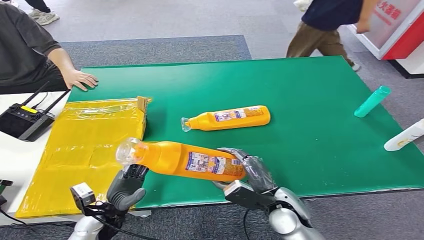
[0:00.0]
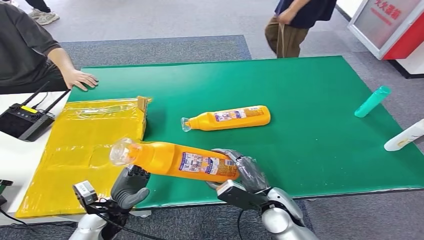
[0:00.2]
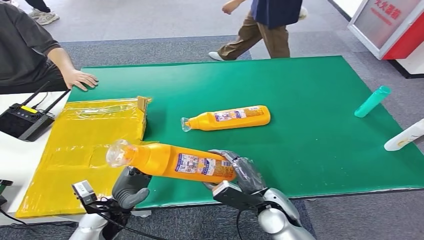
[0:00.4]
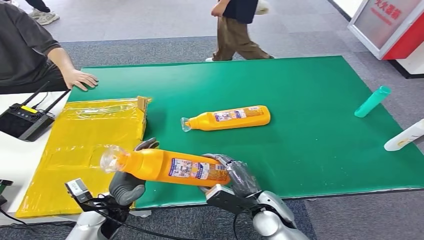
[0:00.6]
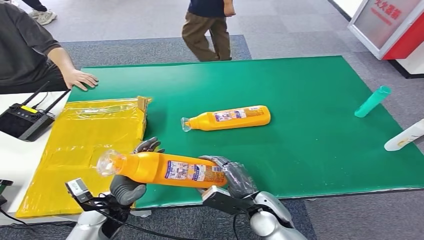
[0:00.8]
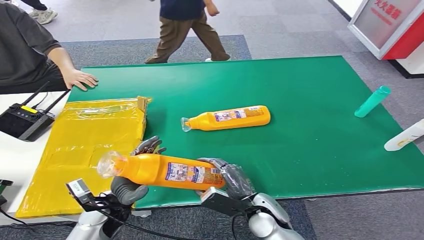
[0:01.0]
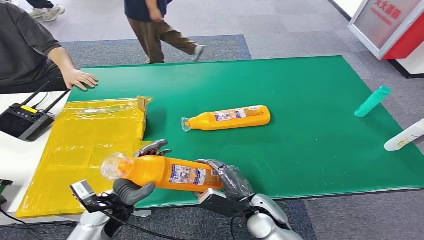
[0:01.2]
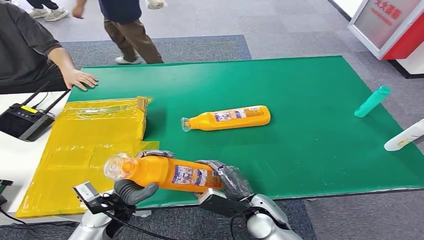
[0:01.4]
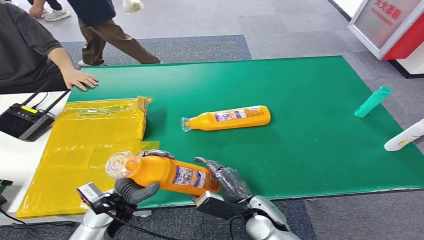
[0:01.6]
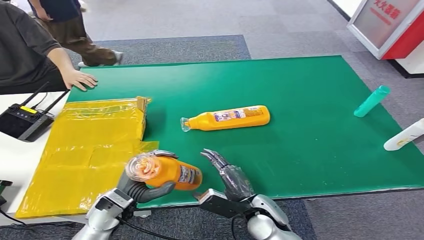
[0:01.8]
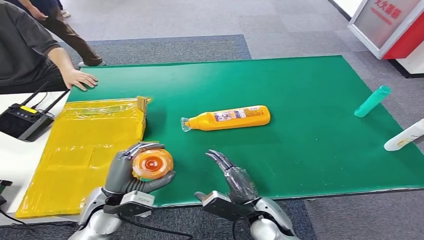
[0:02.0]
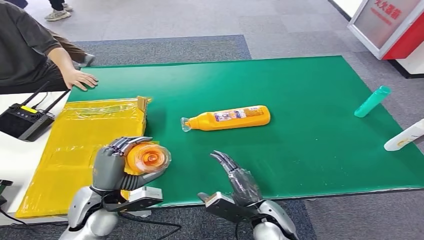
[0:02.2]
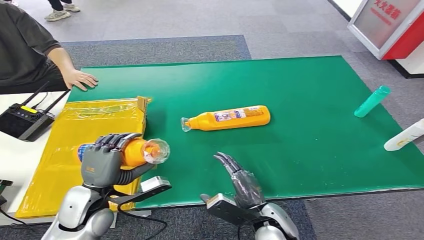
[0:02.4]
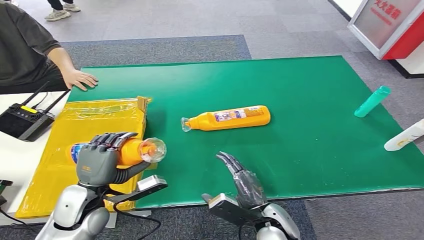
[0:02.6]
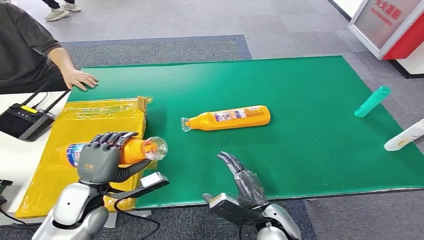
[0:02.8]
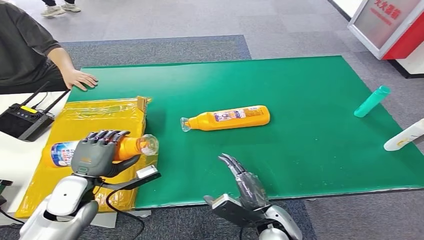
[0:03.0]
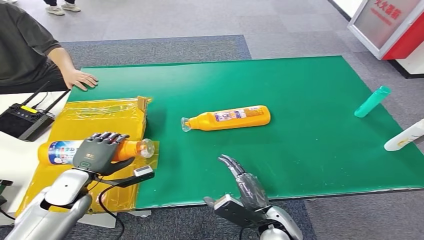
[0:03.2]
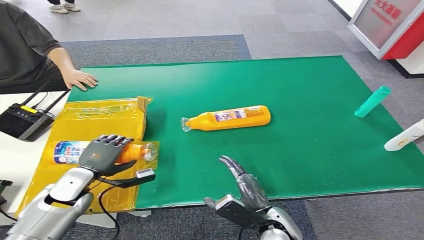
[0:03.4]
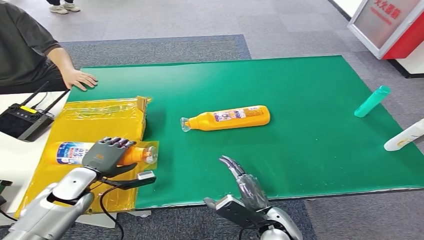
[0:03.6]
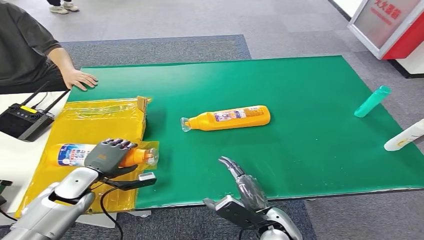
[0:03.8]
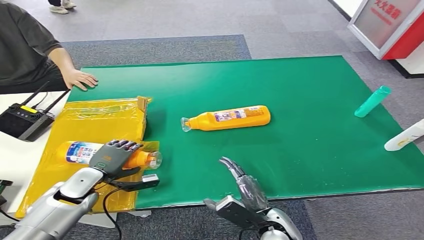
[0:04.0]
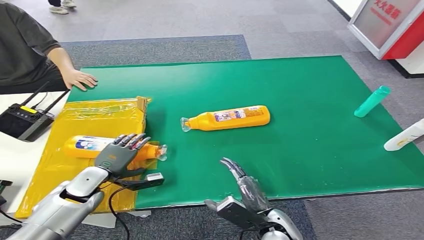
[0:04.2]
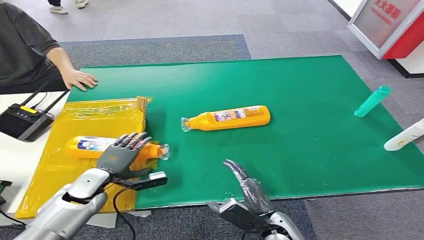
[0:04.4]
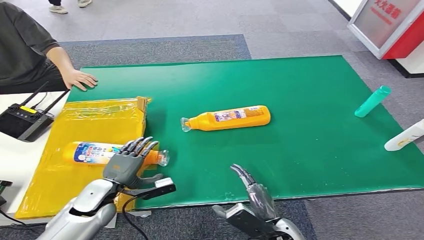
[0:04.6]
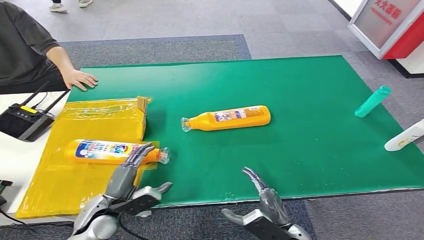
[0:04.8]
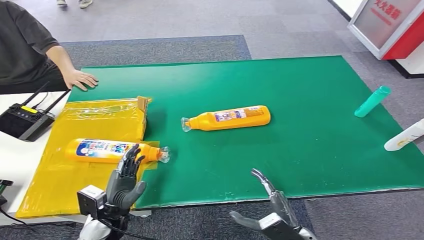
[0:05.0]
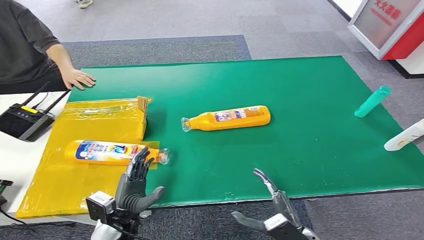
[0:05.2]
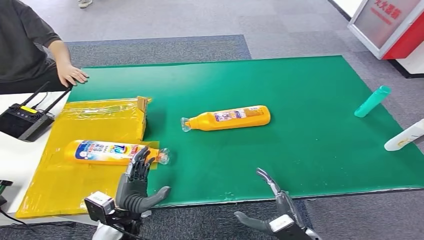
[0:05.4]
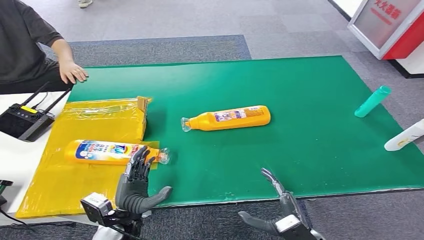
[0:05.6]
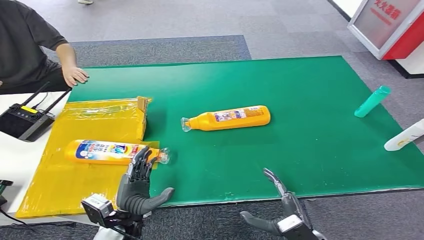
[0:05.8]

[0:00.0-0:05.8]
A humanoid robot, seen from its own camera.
Step, 0:00.0 to 0:05.8: Turn the bottle to the front side.
0:00.0 to 0:01.4: The left hand shifts roughly 5 cm upward. Meanwhile the right hand shifts by some 5 cm.
0:01.4 to 0:02.8: The left hand heads upward, covering about 5 cm.
0:02.8 to 0:04.4: The left hand heads downward and forward, covering roughly 10 cm.
0:04.4 to 0:05.8: The right hand travels to the right by roughly 5 cm. The left hand is displaced backward and to the right by approximately 15 cm.
